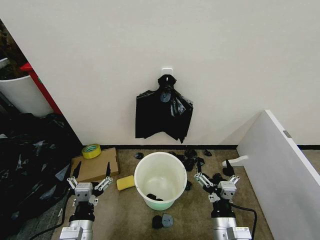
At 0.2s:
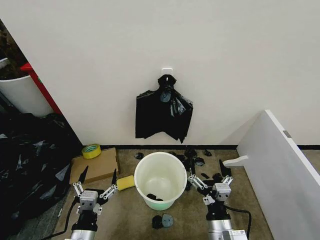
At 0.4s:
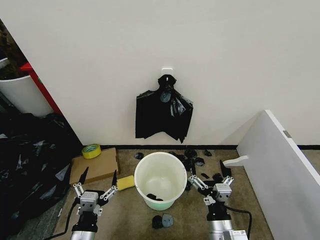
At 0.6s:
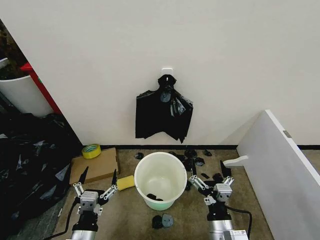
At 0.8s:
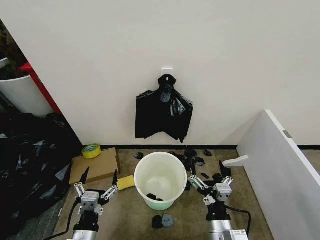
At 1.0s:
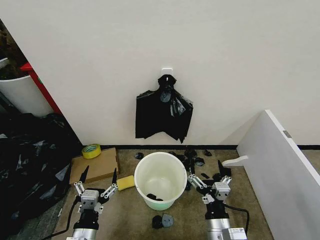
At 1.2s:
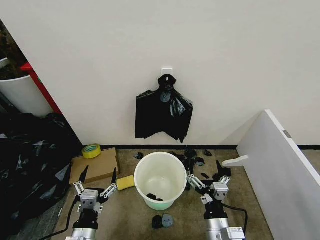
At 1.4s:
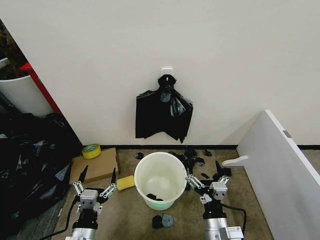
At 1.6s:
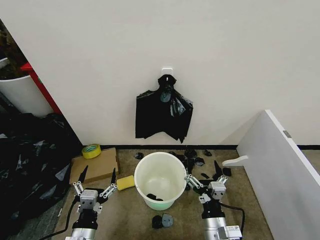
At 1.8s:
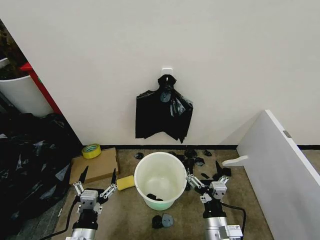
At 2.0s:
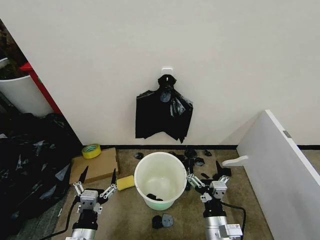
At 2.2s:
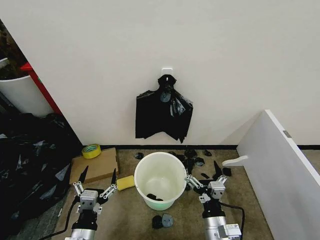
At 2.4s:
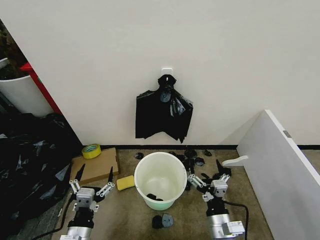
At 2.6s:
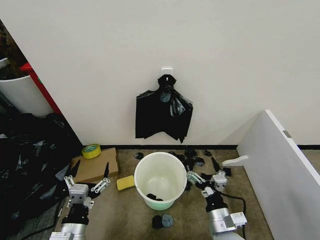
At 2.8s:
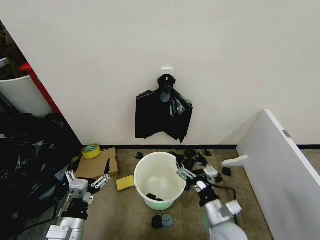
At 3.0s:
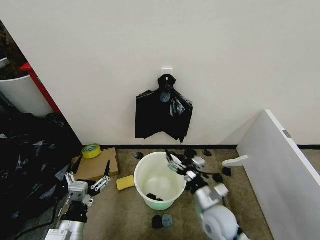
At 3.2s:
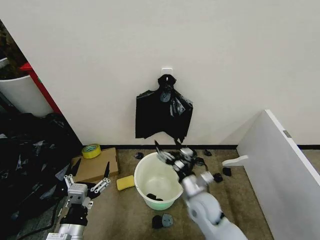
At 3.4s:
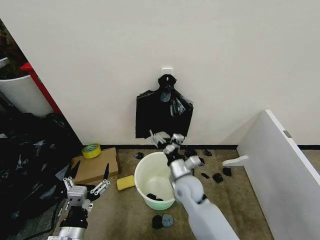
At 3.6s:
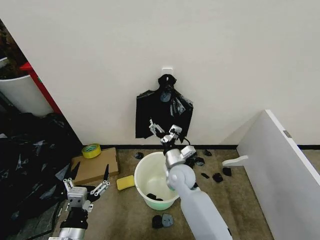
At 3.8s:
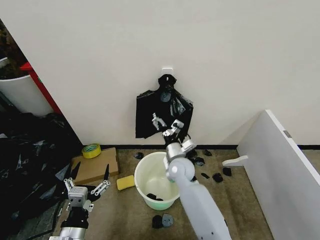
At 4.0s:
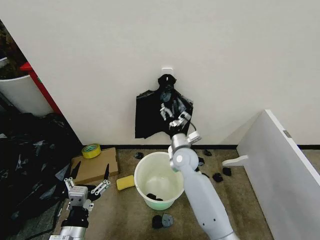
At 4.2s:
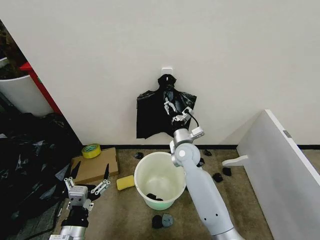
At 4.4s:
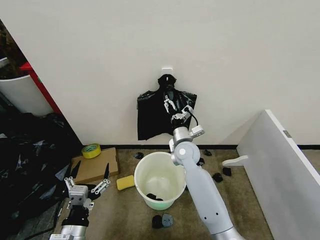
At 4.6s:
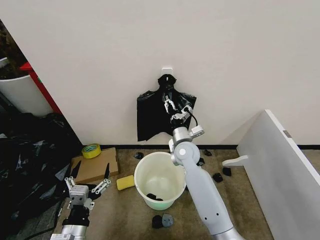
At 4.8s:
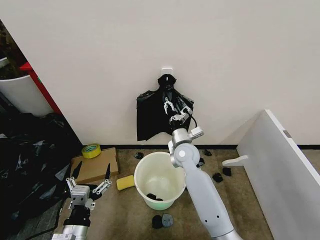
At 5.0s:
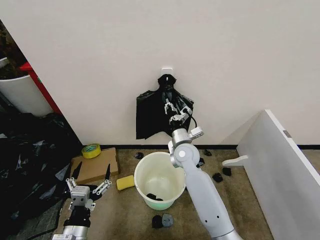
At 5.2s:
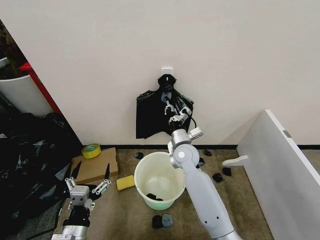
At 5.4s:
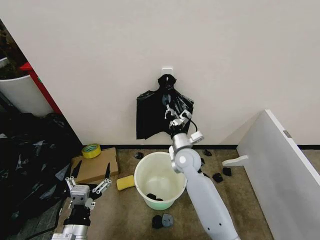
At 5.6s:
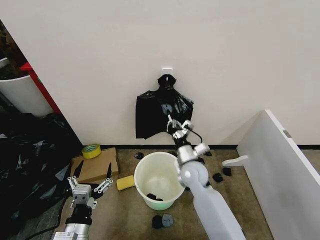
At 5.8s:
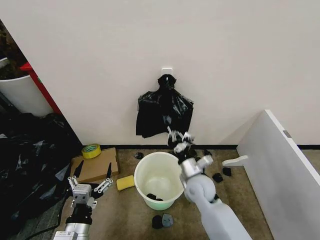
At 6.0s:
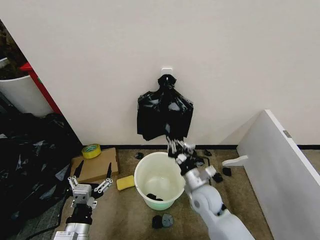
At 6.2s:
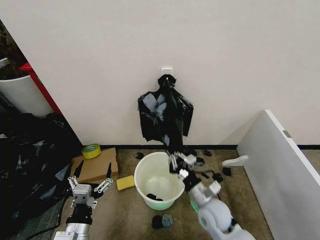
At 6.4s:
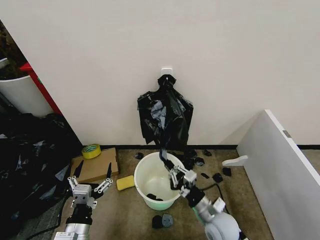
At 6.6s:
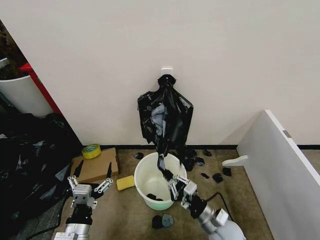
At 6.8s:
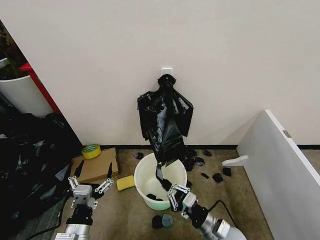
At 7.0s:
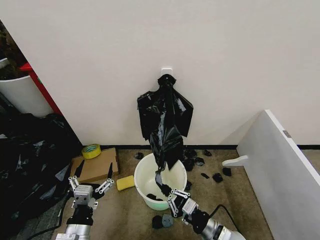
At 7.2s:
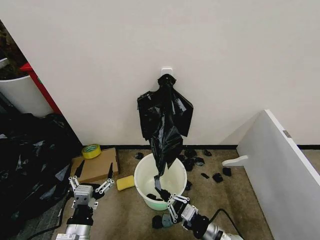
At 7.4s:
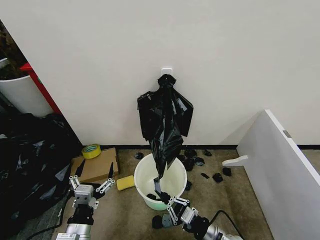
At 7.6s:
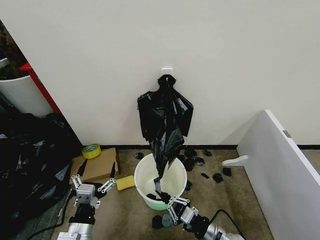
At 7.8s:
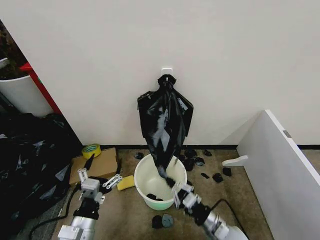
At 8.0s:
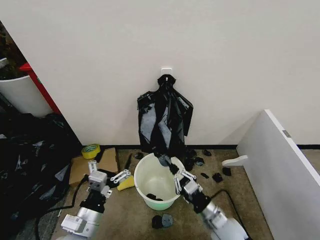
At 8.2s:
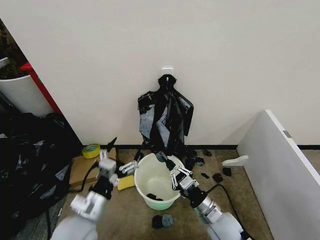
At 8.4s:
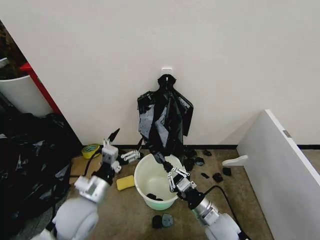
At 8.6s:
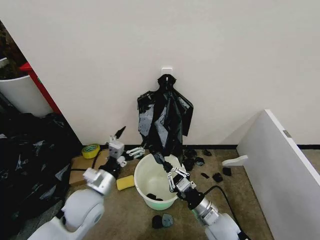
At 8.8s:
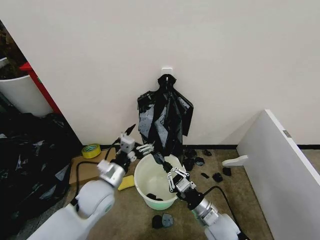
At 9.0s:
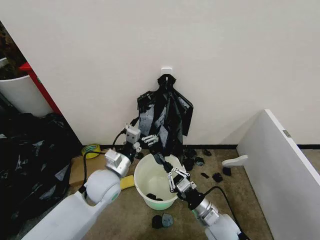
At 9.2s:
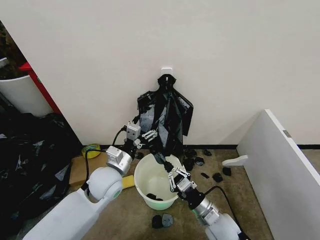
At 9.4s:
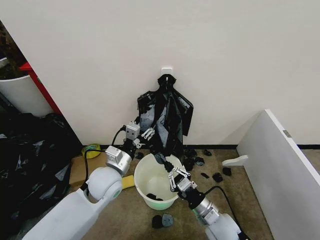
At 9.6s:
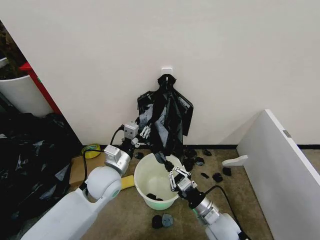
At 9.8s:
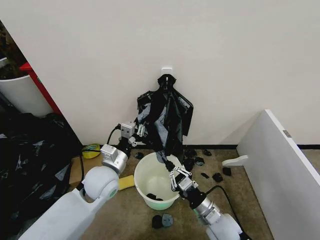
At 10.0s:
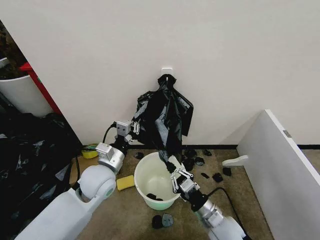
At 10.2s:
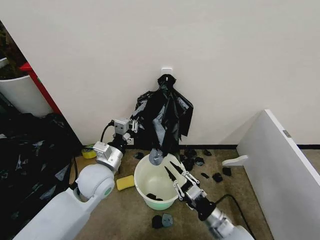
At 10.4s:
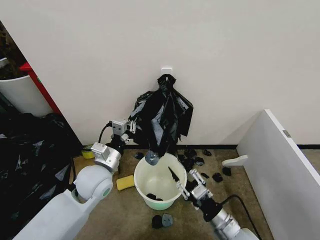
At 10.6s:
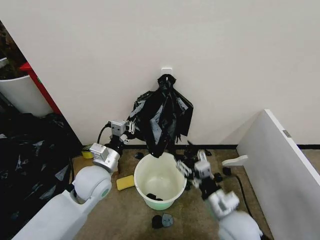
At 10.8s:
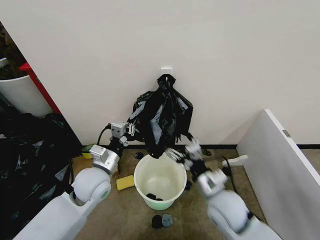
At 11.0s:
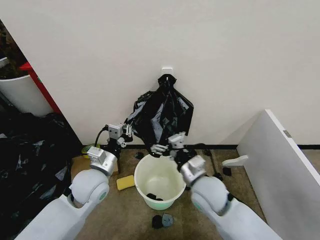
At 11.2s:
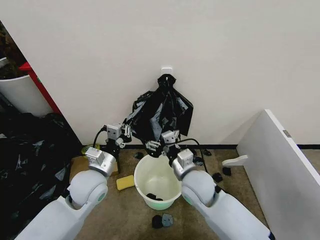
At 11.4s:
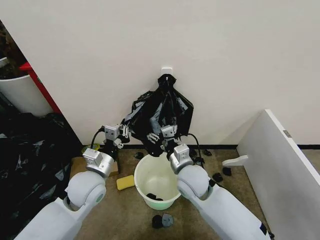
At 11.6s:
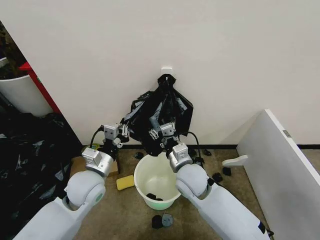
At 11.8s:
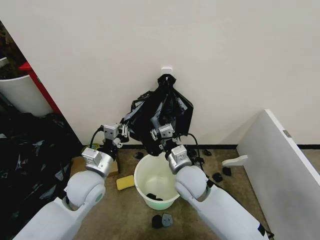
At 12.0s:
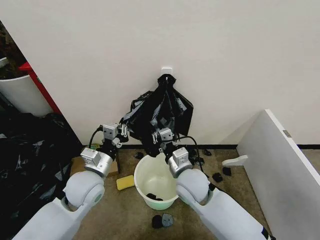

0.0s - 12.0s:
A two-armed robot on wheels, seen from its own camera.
Task of the whole recording: Place the garbage bag over the trash bin.
1.6s - 3.0s: The right gripper shifts about 10 cm forward.
3.0s - 4.4s: The right gripper travels forward by approximately 20 cm.
4.4s - 6.0s: The right gripper shifts approximately 15 cm backward and downward, and closes up.
6.0s - 7.6s: The right gripper travels backward, to the right and downward by approximately 15 cm.
7.6s - 9.0s: The left gripper heads forward, covering approximately 20 cm, while the right gripper is displaced forward by roughly 5 cm.
9.0s - 10.4s: The right gripper ends up approximately 5 cm from where it was, and opens. The left gripper closes its fingers.
10.4s - 12.0s: The right gripper heads forward, to the left and upward, covering about 20 cm, and opens, then closes again.

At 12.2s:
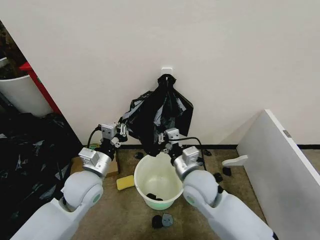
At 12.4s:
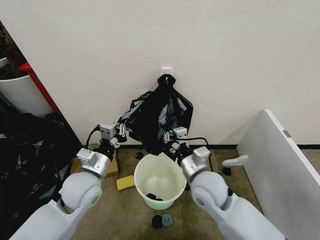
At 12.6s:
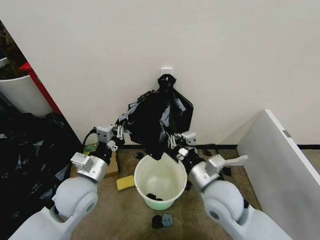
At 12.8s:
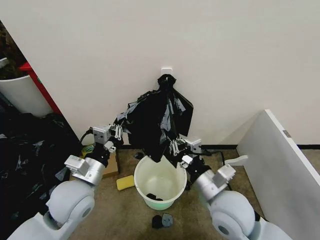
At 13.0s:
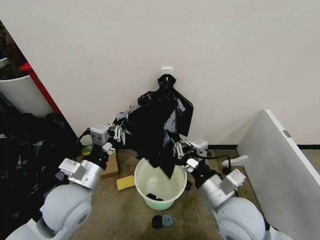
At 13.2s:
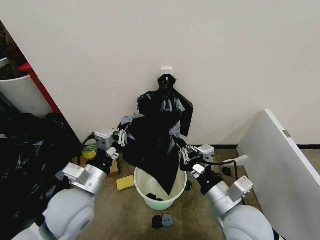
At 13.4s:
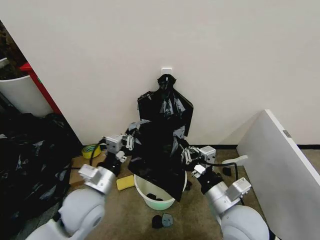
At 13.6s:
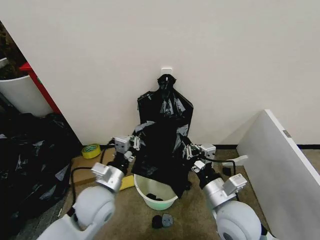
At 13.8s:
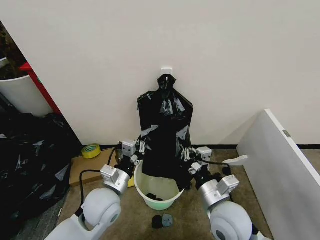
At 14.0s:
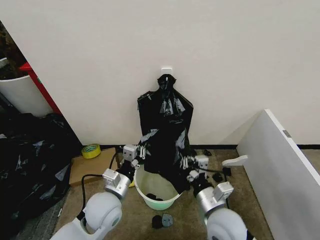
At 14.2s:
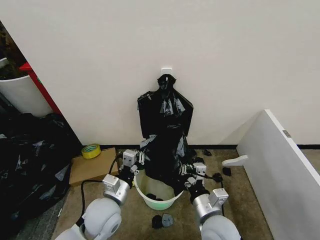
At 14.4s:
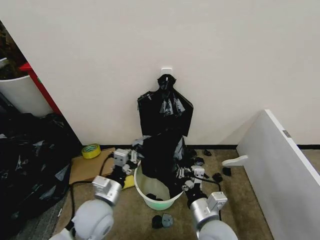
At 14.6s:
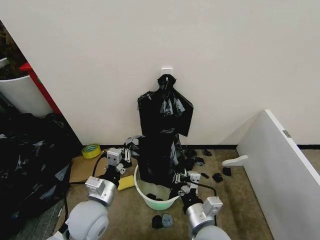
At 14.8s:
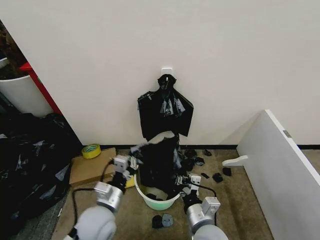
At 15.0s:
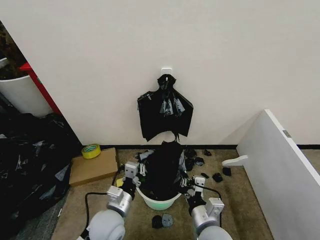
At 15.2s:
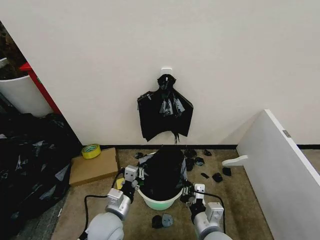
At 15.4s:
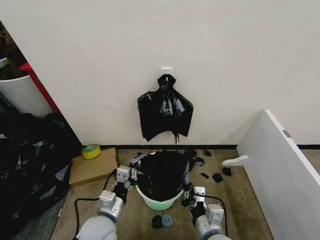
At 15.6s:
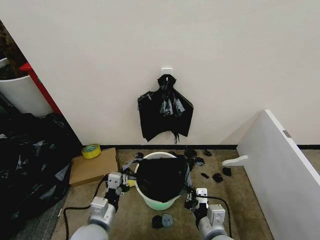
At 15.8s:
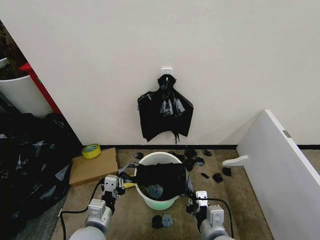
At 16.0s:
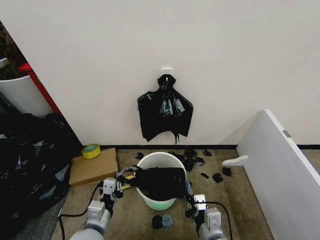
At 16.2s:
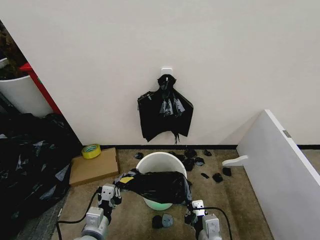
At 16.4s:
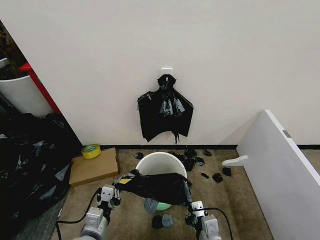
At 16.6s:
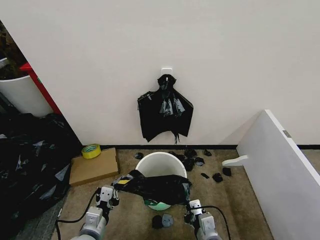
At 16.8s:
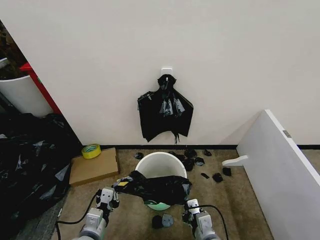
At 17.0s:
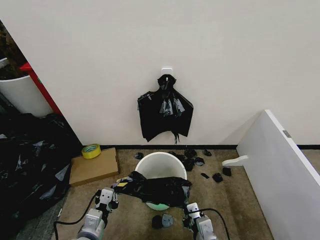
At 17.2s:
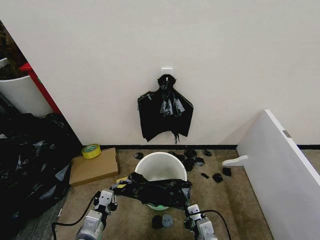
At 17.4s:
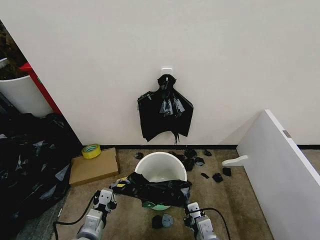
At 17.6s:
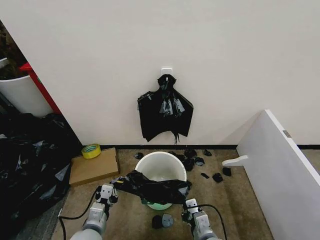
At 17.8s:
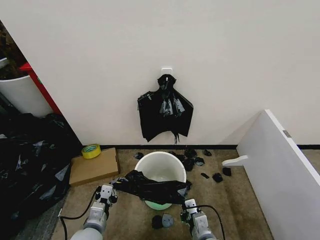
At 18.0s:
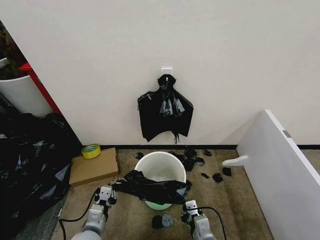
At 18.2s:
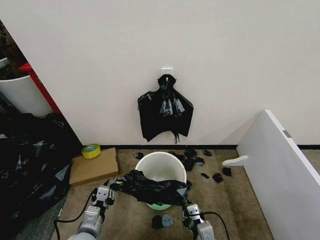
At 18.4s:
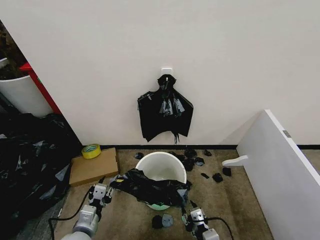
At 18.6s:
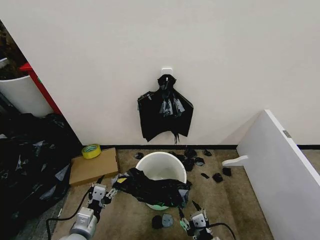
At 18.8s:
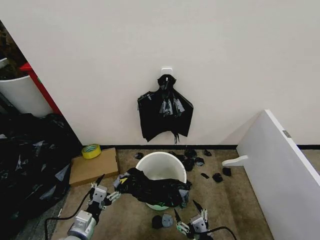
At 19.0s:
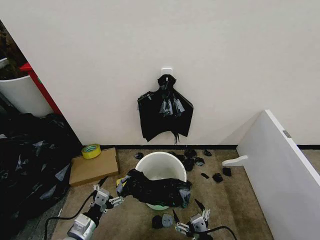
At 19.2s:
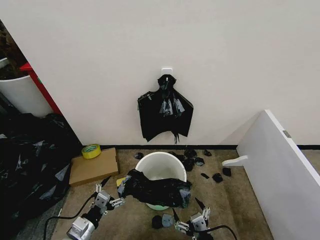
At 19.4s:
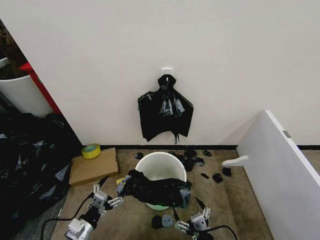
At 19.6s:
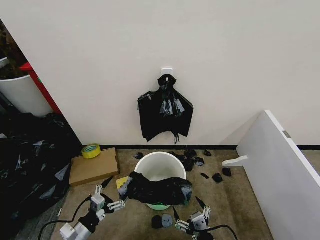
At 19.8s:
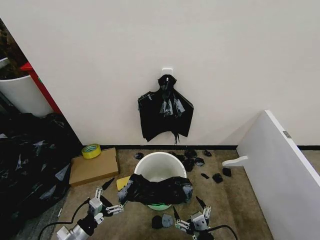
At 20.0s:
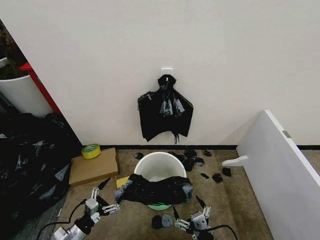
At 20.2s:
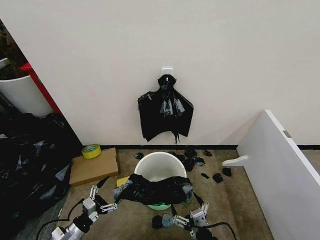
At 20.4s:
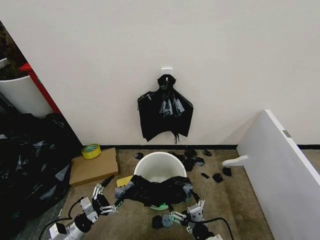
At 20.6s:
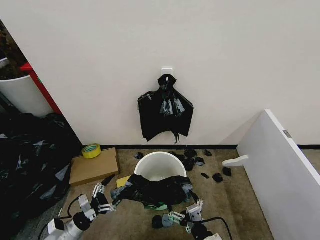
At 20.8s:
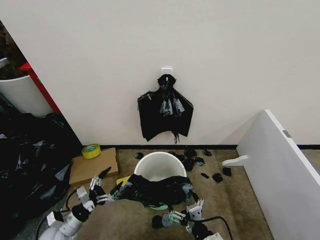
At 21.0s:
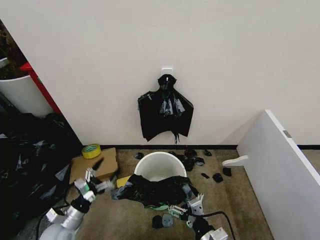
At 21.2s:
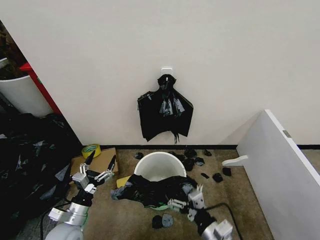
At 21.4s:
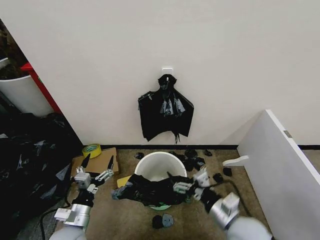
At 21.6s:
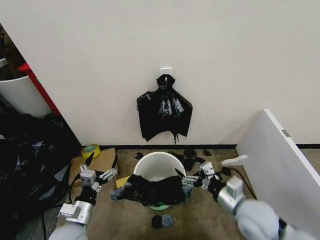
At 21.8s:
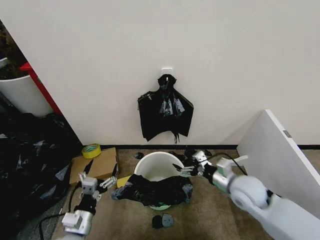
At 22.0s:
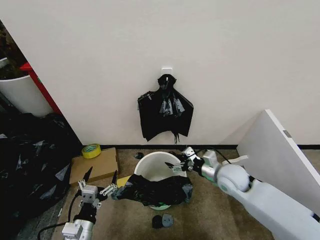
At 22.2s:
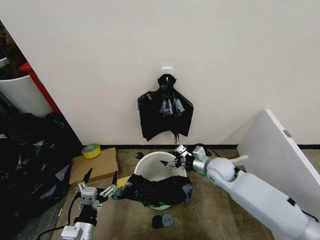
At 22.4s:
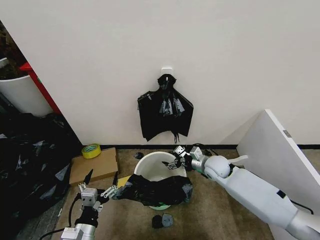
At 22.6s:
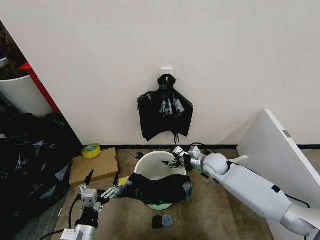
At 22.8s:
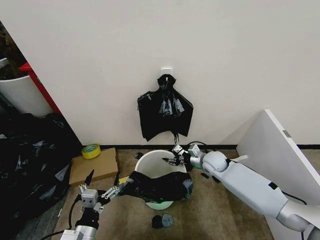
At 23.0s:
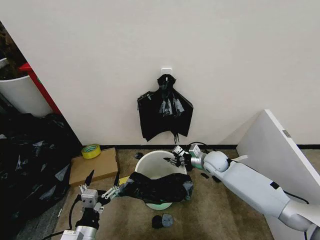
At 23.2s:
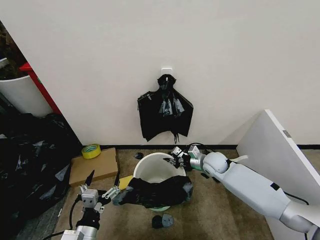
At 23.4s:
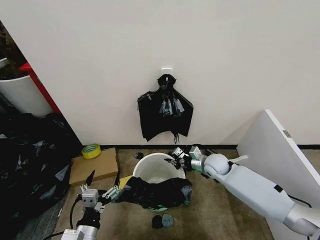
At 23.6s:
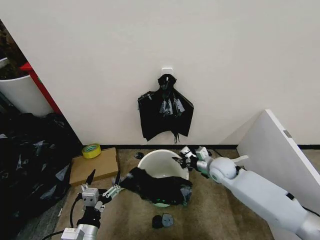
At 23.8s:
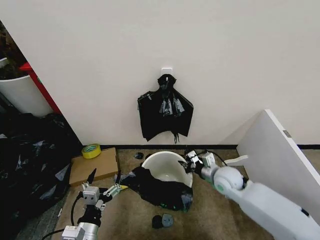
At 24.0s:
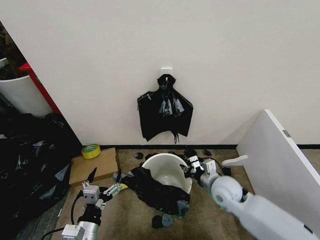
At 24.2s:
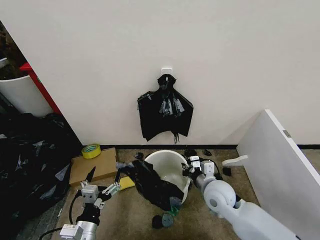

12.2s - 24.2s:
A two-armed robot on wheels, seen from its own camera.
Task of the whole recording: Place the garbage bag over the trash bin.
12.2s - 13.8s: The right gripper heads backward and to the right, covering about 10 cm. Meanwhile the left gripper shifts approximately 5 cm to the right.
13.8s - 15.2s: The left gripper shifts approximately 5 cm downward. The right gripper goes roughly 10 cm downward and backward.
15.2s - 16.6s: The left gripper is displaced to the left and backward by some 10 cm.
16.6s - 18.2s: The grippers make only small movements.
18.2s - 19.8s: The left gripper goes approximately 10 cm to the left, and opens up. The right gripper changes place by roughly 5 cm, and opens its fingers.
19.8s - 21.2s: The left gripper shifts by some 5 cm. The right gripper goes roughly 10 cm forward and upward.
21.2s - 22.6s: The right gripper travels forward by approximately 30 cm, while the left gripper moves backward and to the right, about 10 cm.
22.6s - 24.2s: The right gripper heads backward, covering some 15 cm, and closes up.
